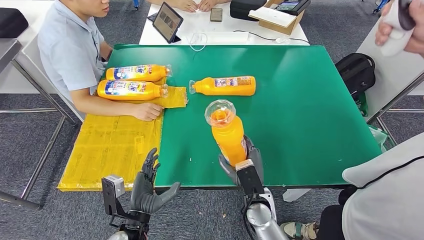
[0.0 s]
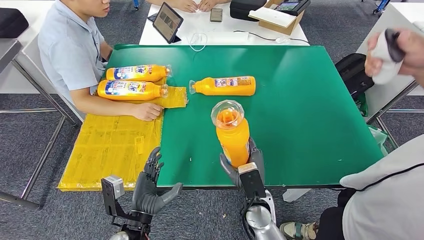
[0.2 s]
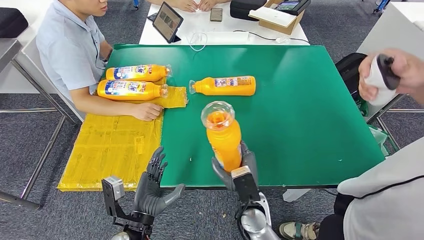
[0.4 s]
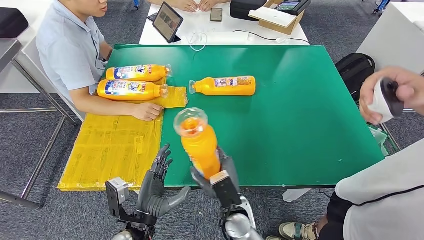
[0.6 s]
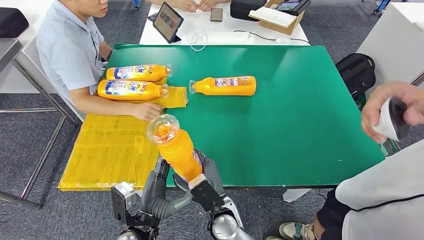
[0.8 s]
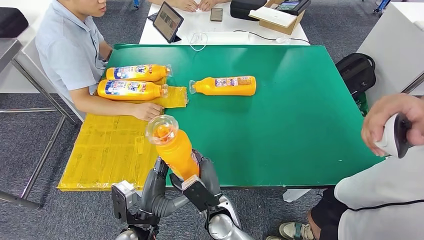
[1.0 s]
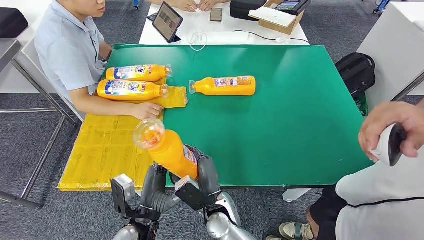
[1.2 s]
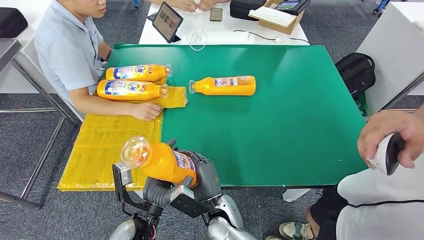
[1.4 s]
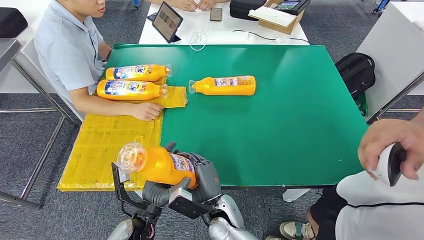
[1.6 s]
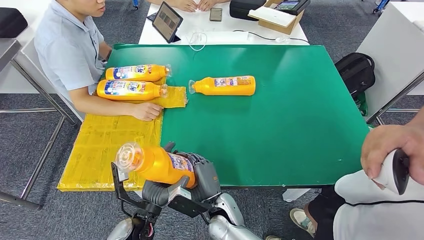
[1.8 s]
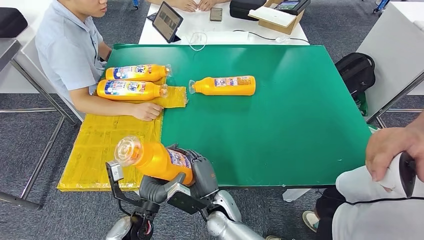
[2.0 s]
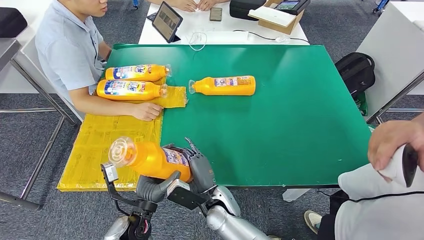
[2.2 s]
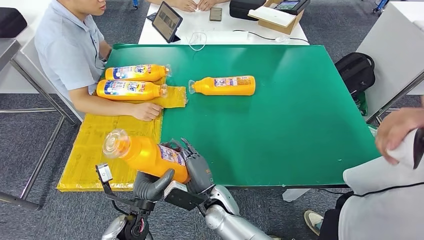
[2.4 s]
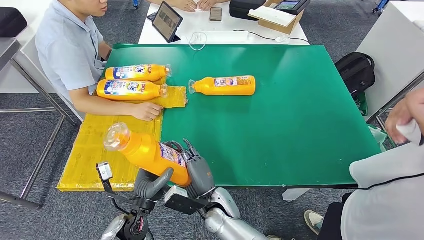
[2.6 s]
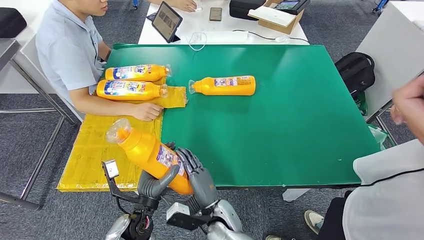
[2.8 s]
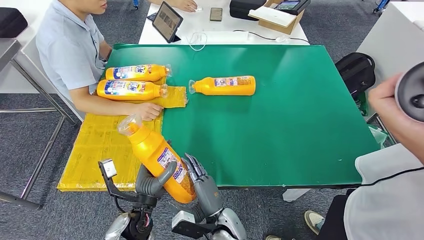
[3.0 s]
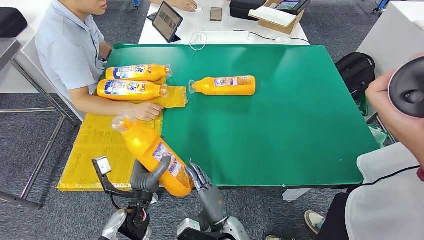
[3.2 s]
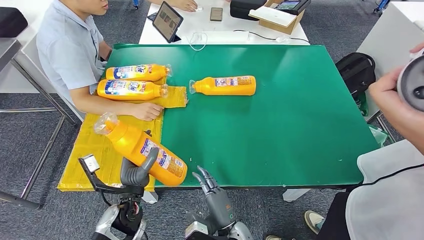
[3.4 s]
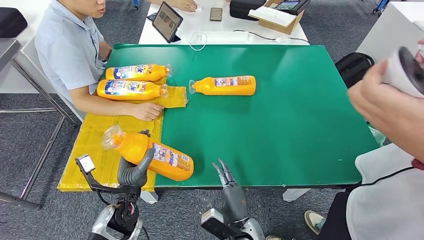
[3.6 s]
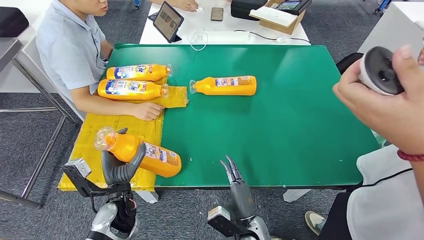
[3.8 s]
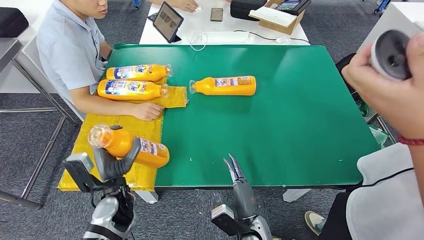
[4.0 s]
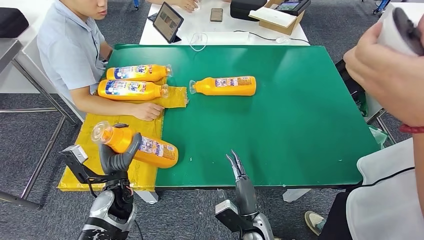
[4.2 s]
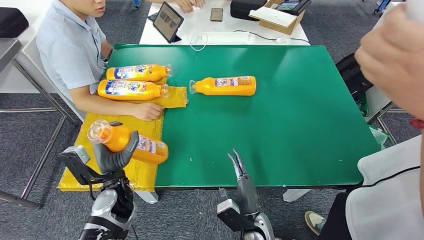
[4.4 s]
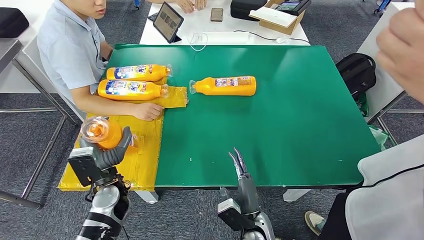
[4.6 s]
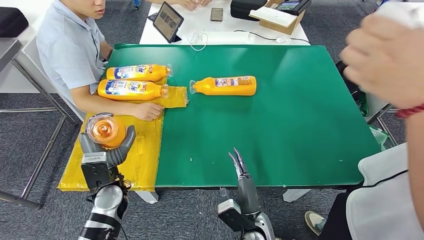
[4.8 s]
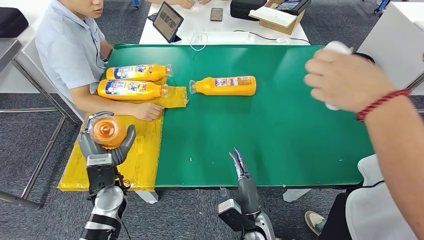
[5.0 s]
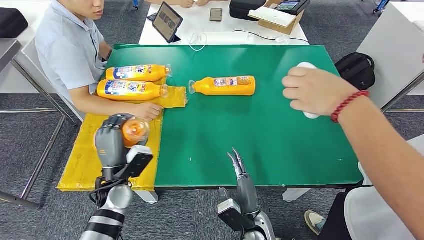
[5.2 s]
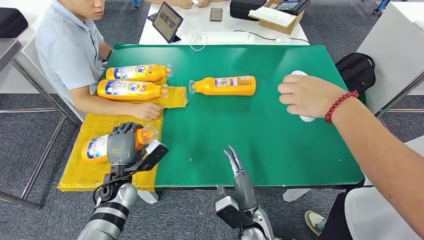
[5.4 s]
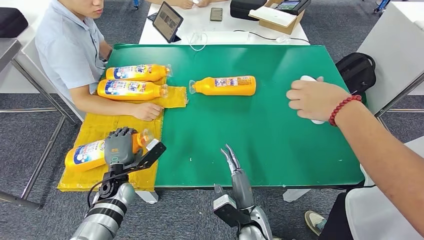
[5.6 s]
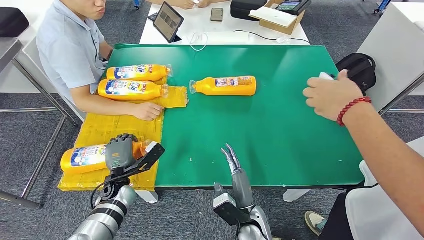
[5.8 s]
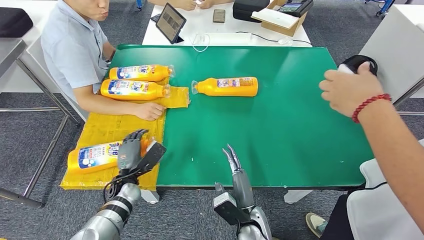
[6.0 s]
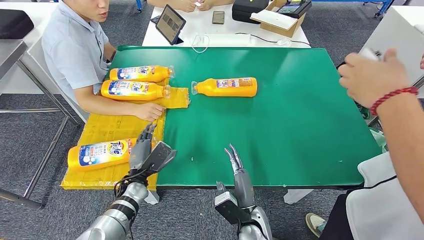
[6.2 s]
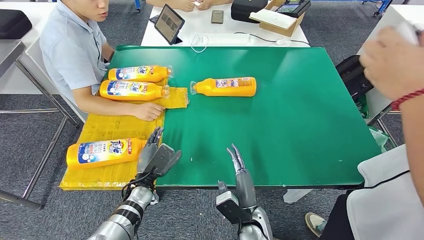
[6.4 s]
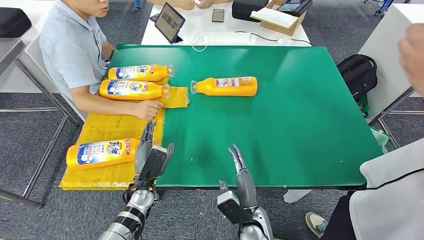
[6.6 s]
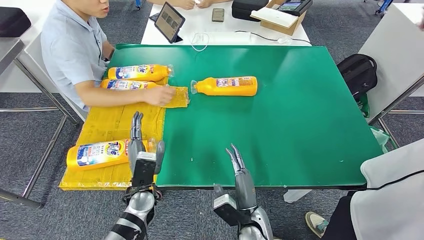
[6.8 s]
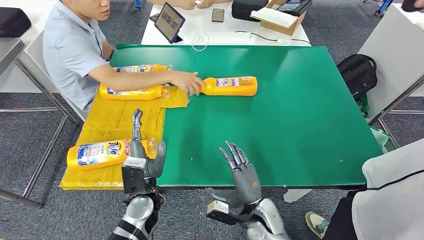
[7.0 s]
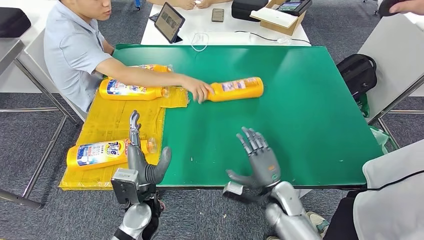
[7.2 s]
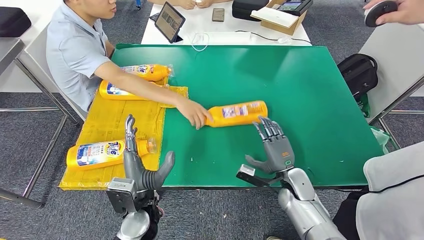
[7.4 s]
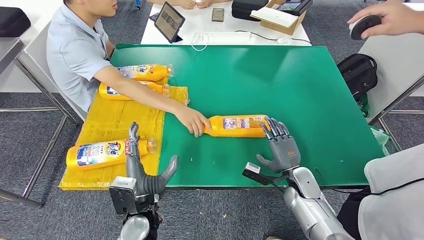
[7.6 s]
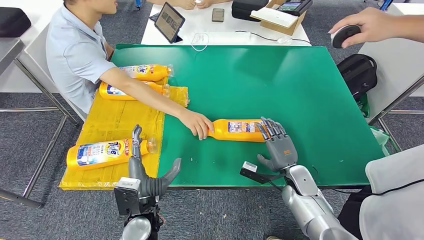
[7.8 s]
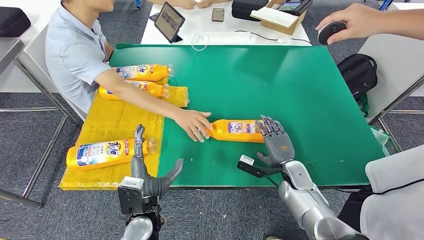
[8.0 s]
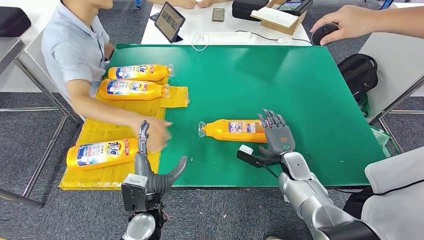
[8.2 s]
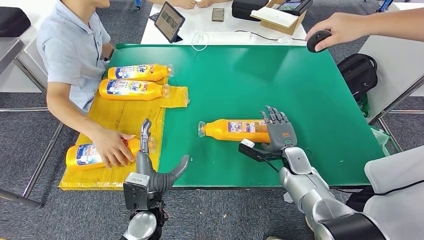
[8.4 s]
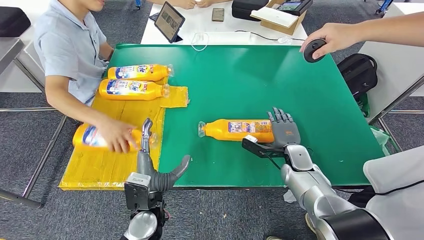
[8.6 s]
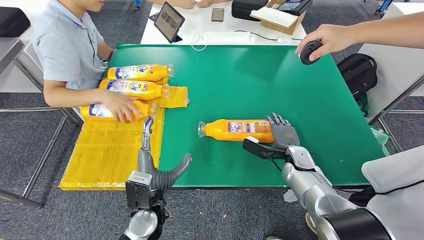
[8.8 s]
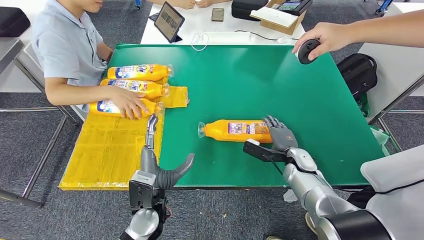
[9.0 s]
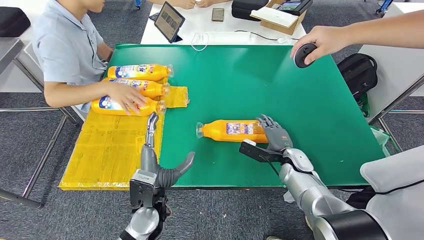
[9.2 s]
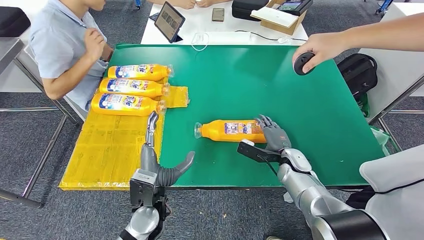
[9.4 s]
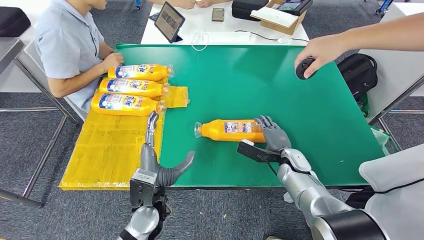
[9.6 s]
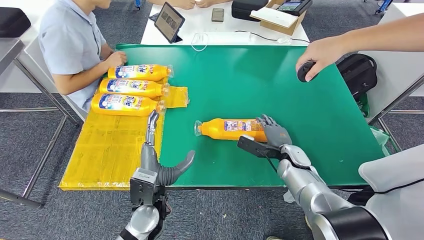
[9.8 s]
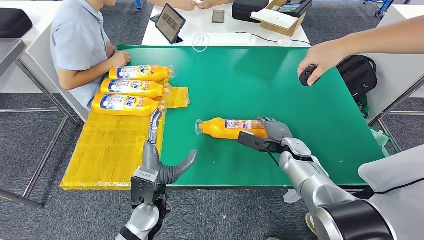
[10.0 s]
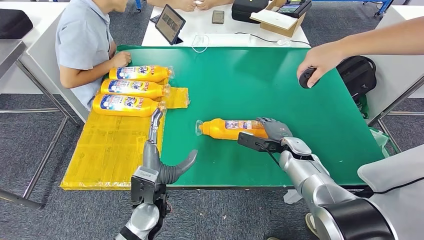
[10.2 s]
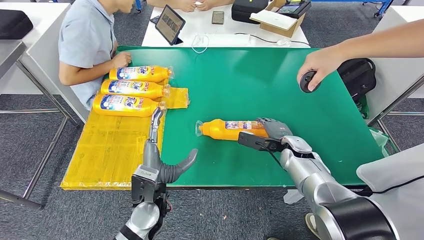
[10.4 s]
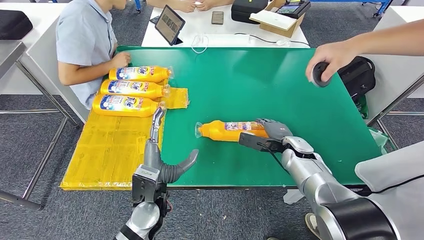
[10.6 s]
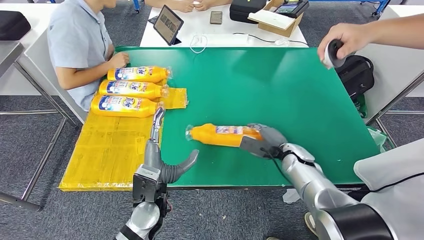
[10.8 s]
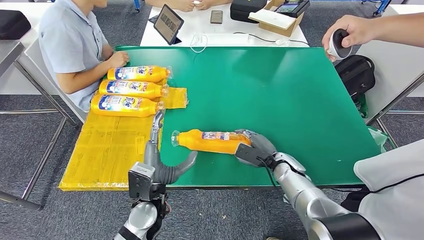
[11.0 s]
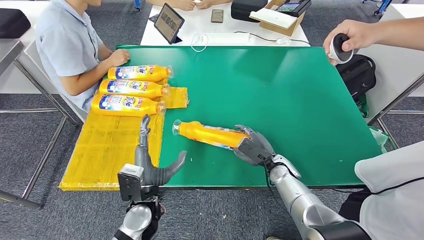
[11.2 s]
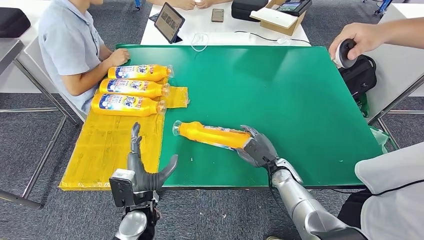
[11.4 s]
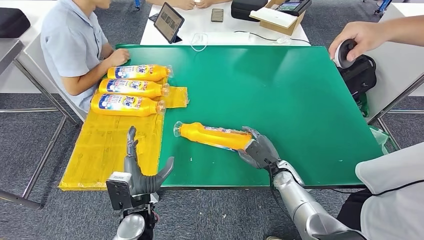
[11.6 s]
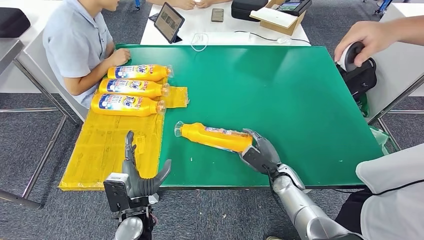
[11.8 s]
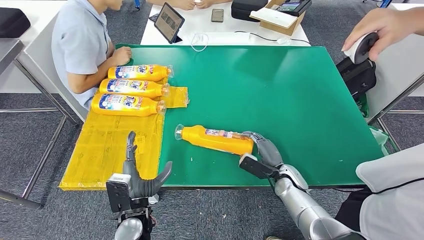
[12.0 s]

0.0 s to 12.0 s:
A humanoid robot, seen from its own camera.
Step, 2.0 to 6.8 s: Flip the fast-moving consumer goods bottle to the front side.
0.0 to 1.6 s: The right hand shifts approximately 10 cm to the left.
1.6 to 3.0 s: The hands make only small movements.

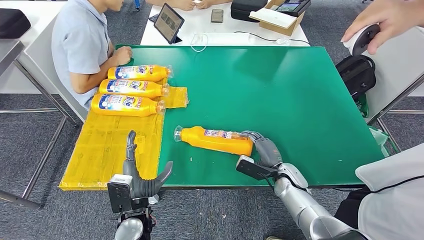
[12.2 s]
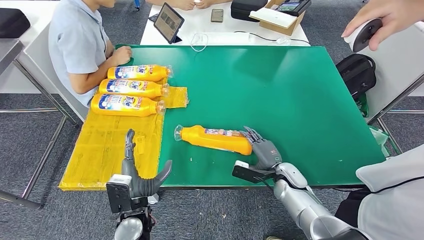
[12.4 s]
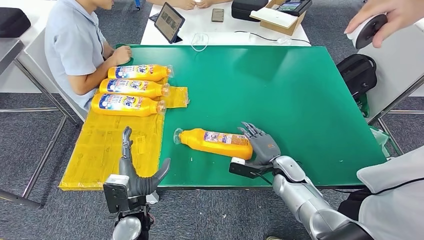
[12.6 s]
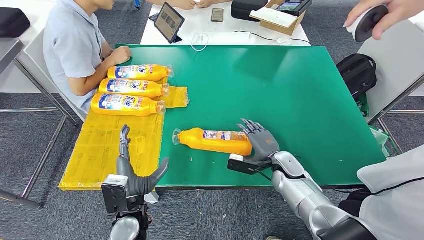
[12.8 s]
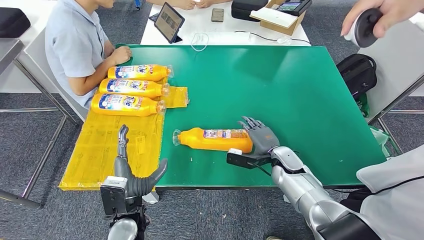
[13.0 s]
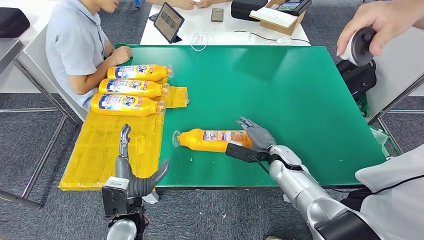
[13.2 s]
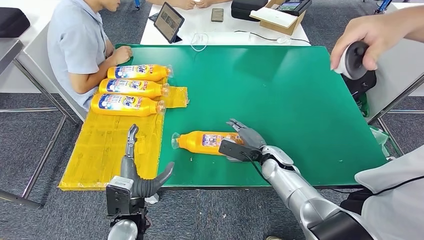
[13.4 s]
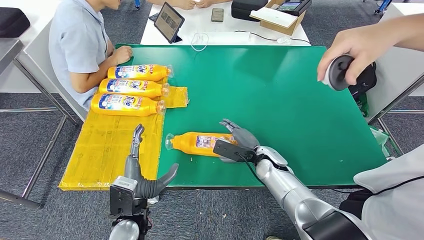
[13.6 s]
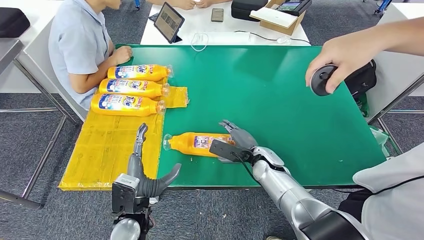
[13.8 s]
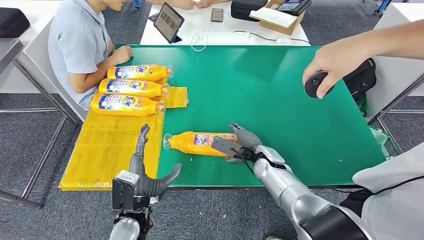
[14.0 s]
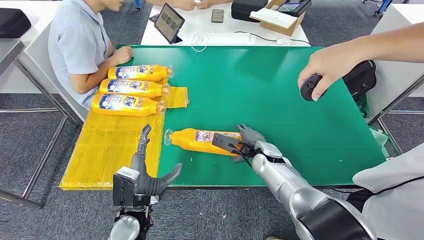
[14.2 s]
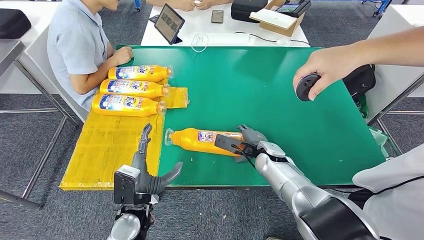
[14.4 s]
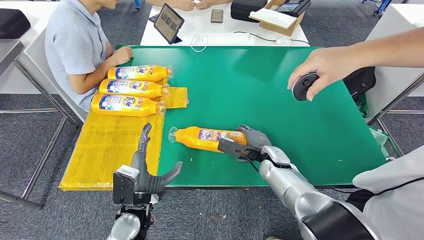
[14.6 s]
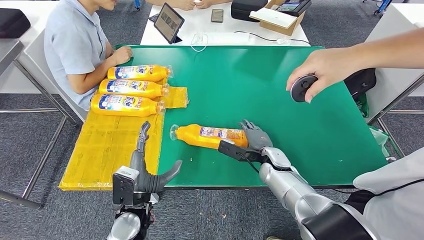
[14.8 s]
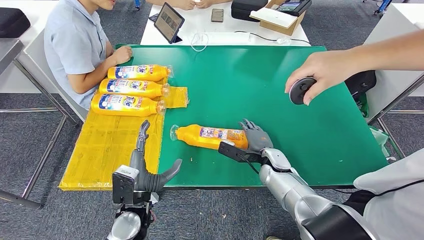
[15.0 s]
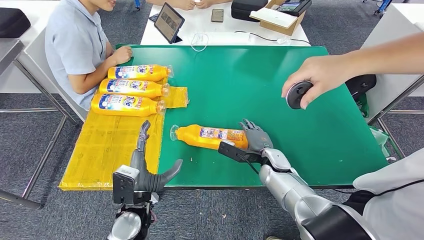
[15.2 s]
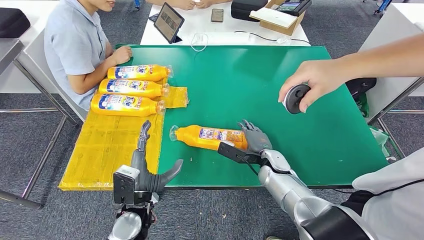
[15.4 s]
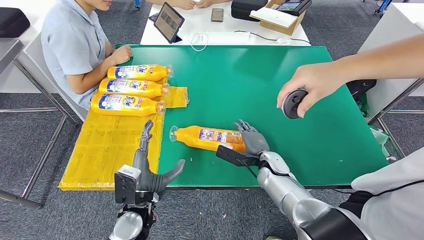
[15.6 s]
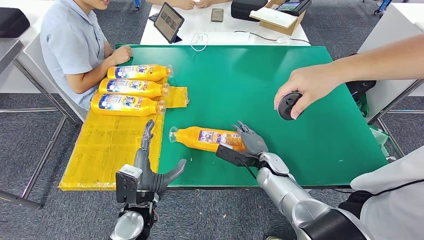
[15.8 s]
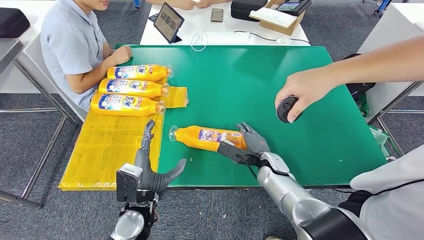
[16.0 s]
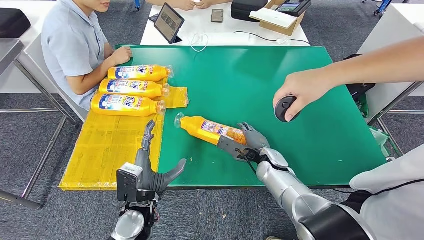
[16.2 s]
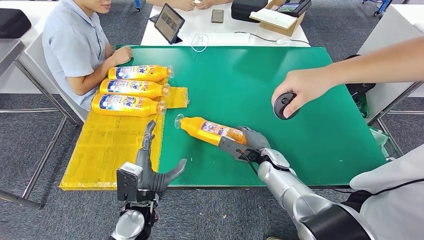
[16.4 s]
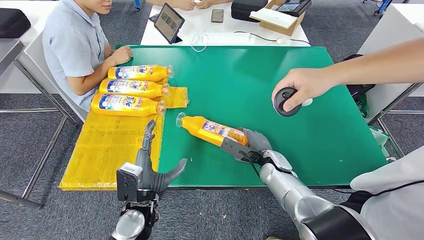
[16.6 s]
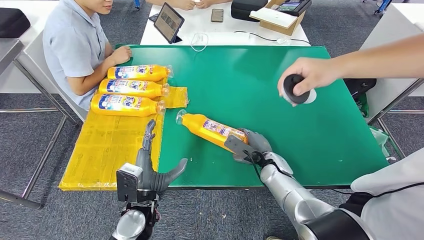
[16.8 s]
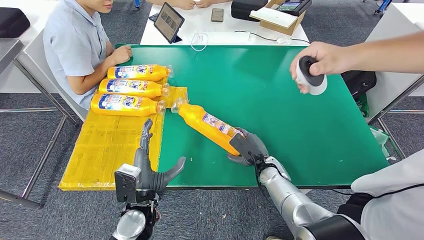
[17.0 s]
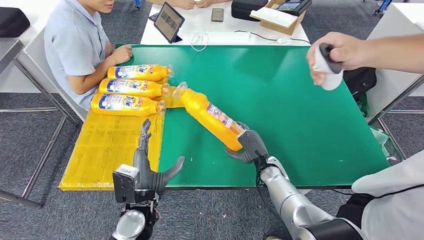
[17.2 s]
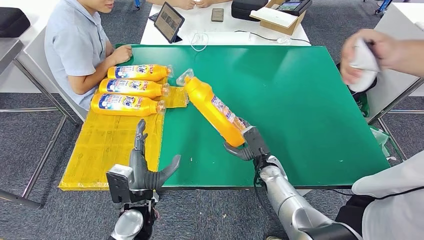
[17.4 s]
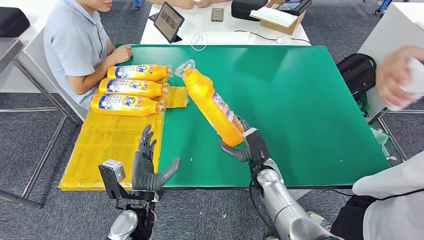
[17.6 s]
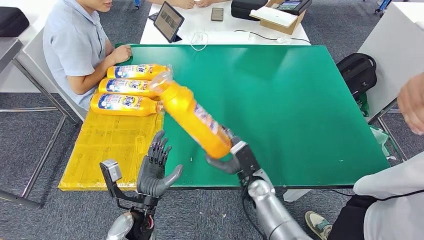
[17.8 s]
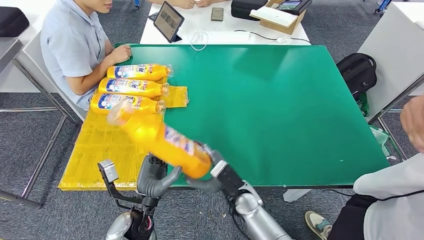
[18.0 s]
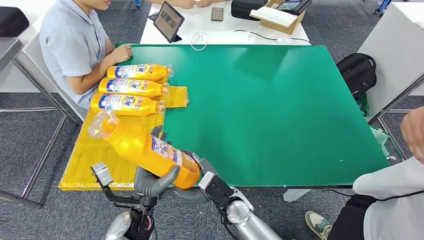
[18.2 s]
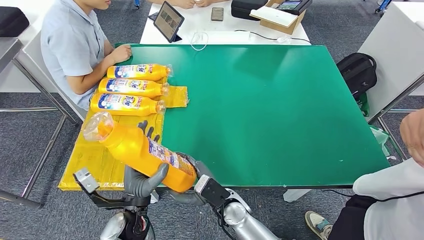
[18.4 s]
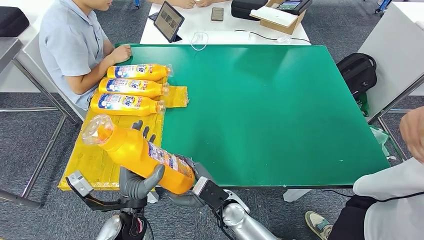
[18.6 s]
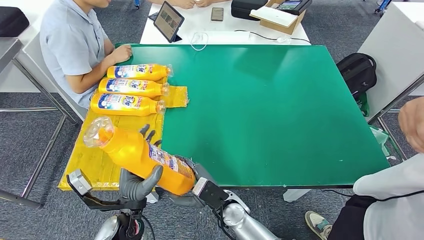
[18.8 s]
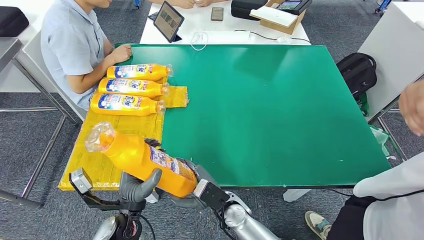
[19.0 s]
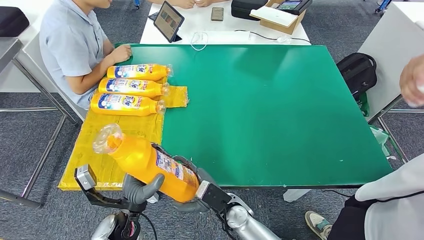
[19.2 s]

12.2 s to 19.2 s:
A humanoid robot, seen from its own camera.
Step, 15.8 to 19.0 s: Pick up the fast-moving consumer goods bottle from the table.
12.2 to 13.6 s: The right hand shifts approximately 10 cm to the left and upward.
15.0 to 16.4 s: The hands make only small movements.
17.8 to 19.2 s: The right hand goes approximately 10 cm to the left and backward.
